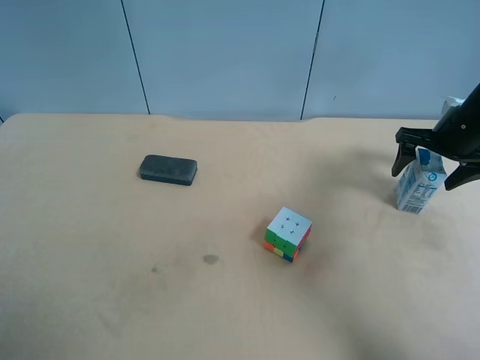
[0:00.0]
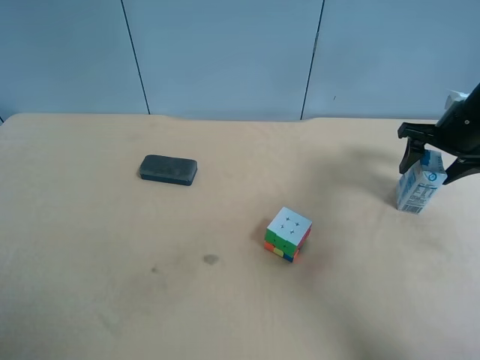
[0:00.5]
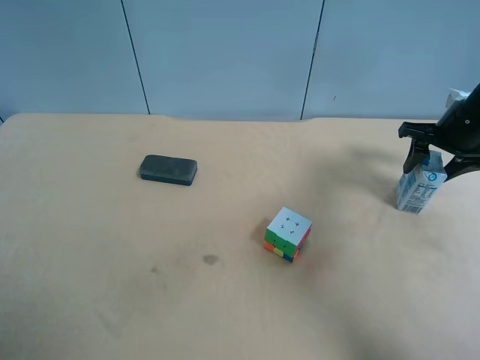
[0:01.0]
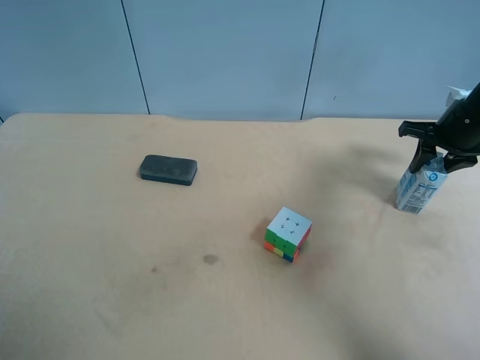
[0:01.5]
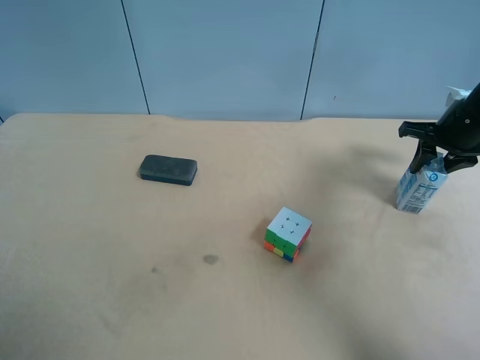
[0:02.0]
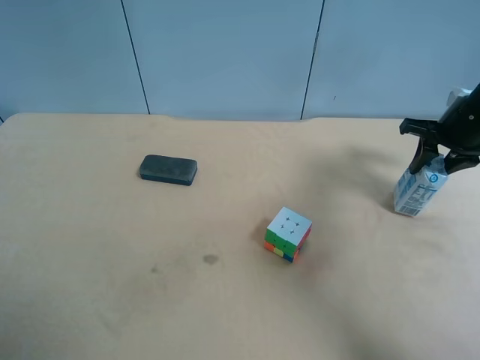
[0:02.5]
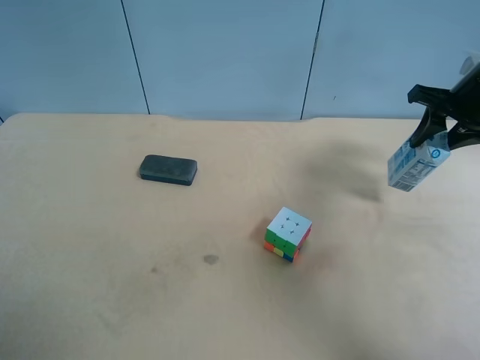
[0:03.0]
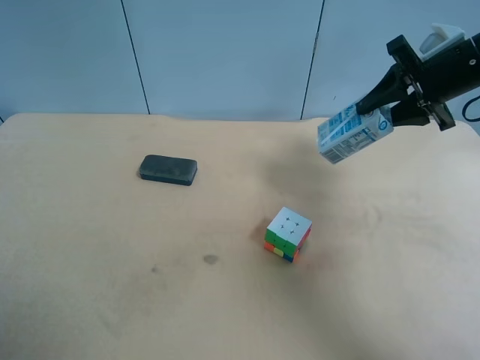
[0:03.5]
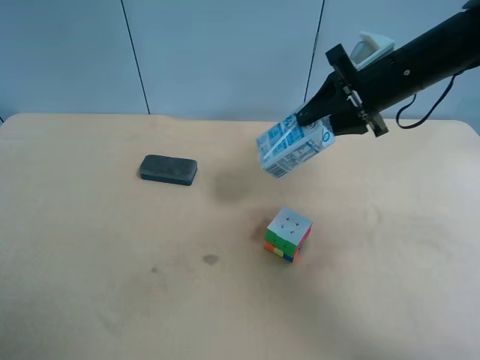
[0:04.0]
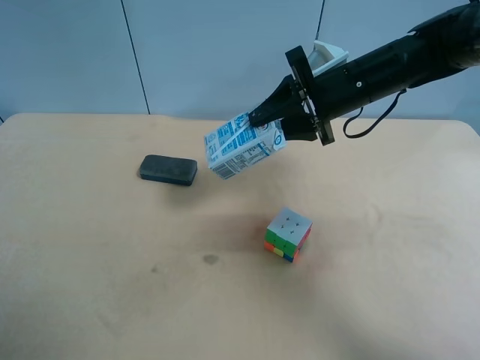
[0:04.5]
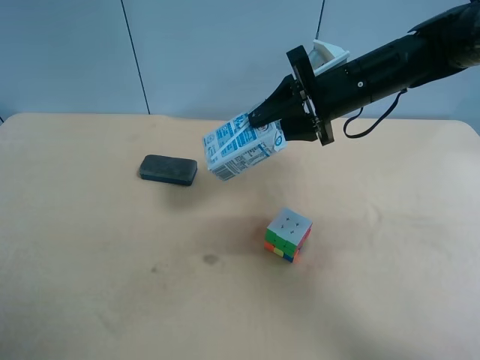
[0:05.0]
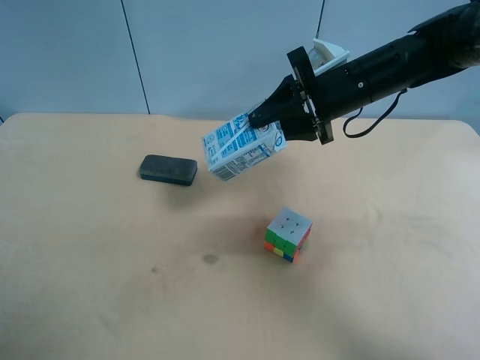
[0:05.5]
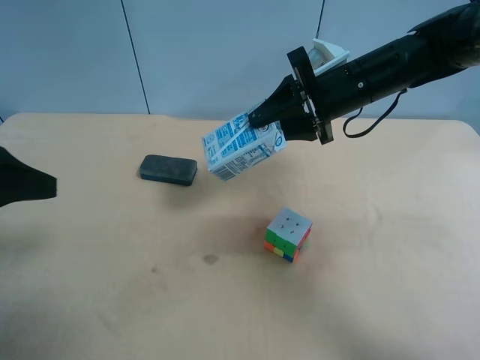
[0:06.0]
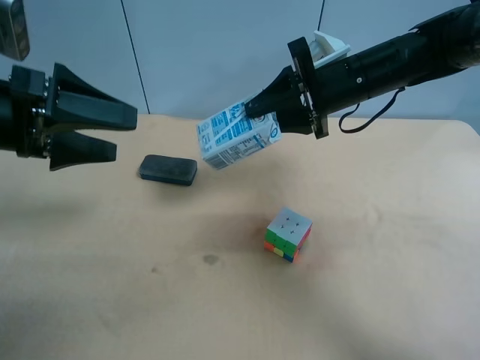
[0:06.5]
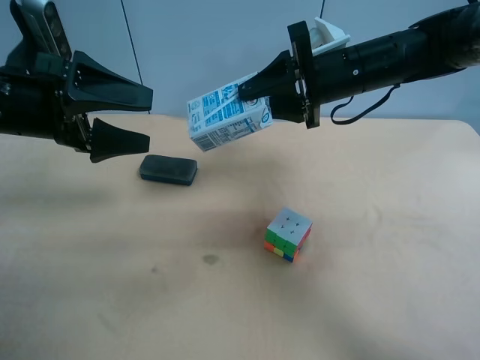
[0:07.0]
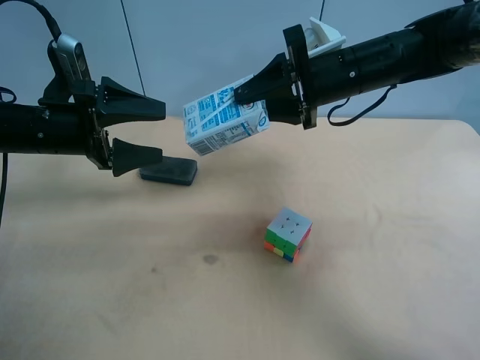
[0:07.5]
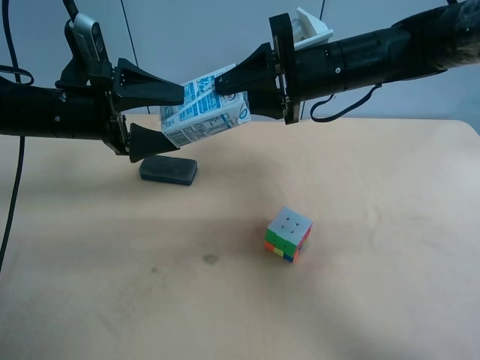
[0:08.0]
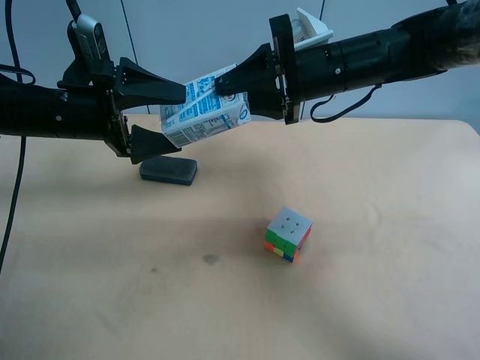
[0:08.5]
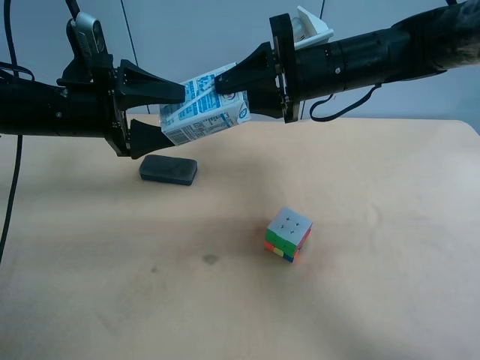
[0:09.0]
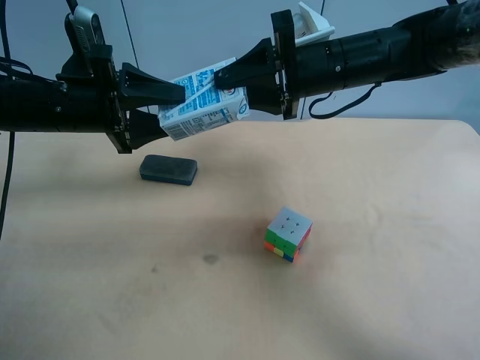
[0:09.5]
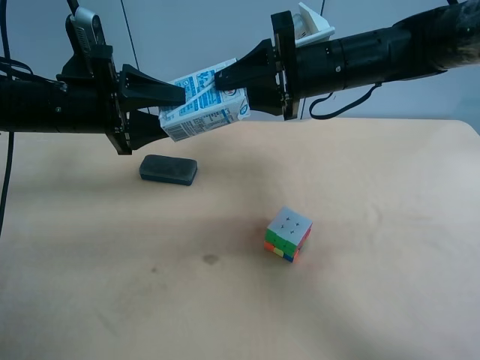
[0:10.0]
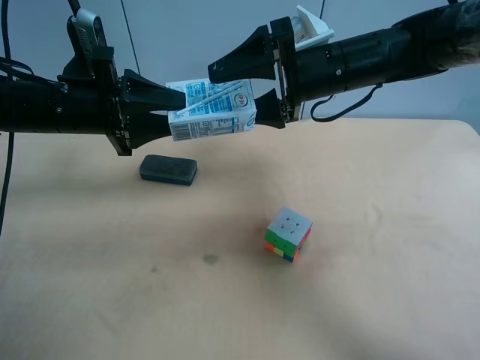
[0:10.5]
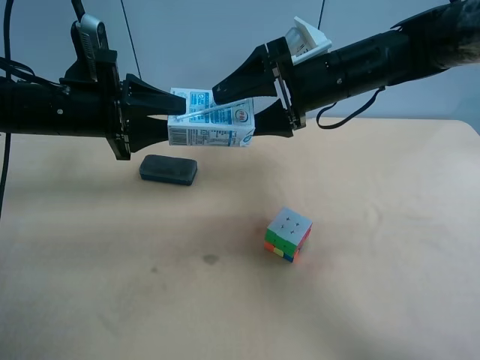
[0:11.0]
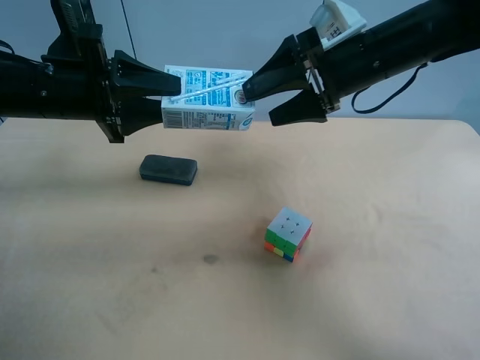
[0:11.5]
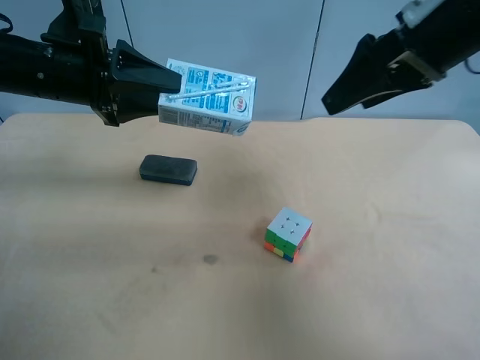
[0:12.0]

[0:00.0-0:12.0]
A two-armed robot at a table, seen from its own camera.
Task of the whole recording: use the right gripper to pick up the item and transfer it from the right gripper to the left gripper.
0:00.0 to 0:02.0: The right gripper closes.
0:02.0 to 0:04.0: The right gripper goes approximately 15 cm to the left and upward.
0:04.0 to 0:06.0: The left gripper heads forward, covering some 15 cm.
0:06.0 to 0:08.0: The left gripper is displaced forward, to the right and downward by some 20 cm.
0:08.0 to 0:10.0: The left gripper closes.
0:10.0 to 0:12.0: The right gripper travels upward, to the right and backward by approximately 15 cm, and opens.

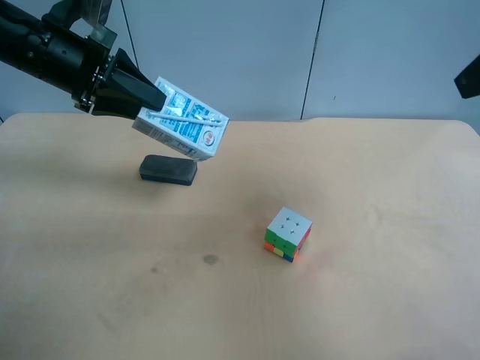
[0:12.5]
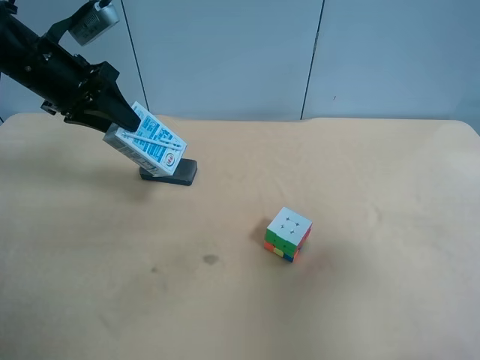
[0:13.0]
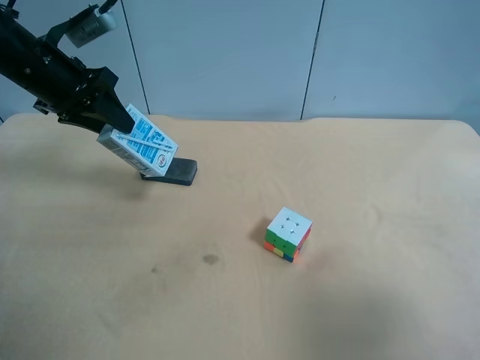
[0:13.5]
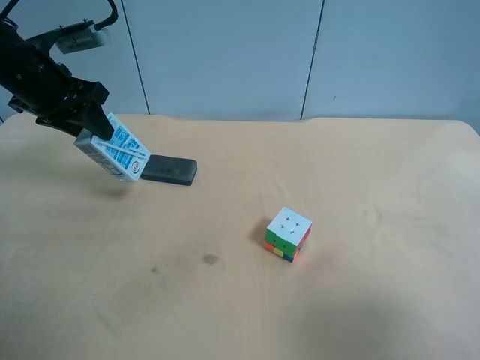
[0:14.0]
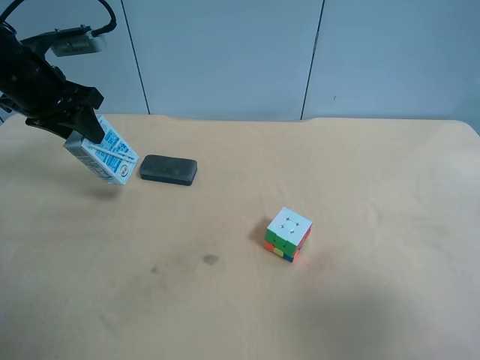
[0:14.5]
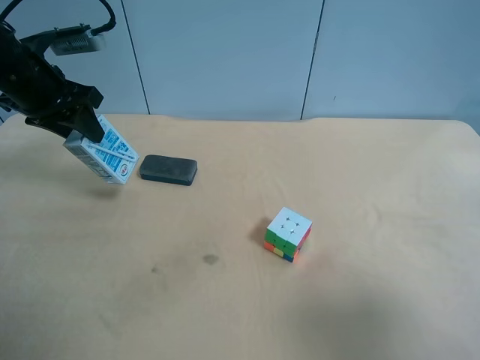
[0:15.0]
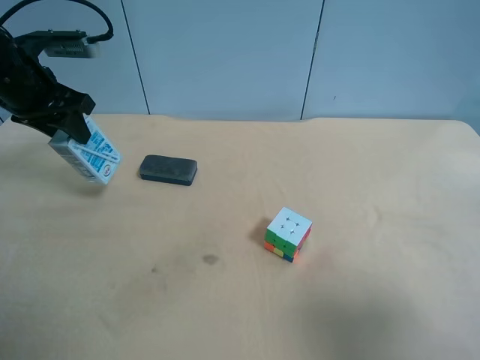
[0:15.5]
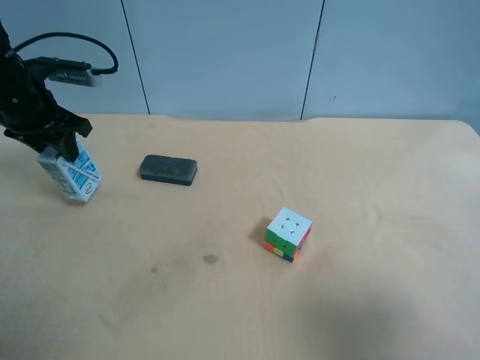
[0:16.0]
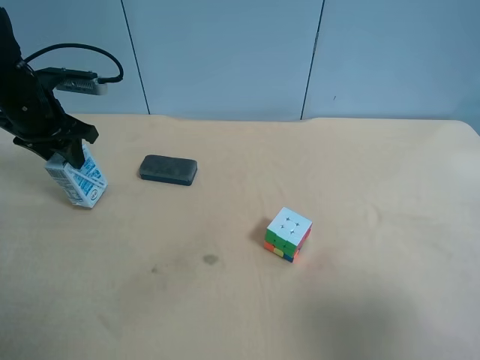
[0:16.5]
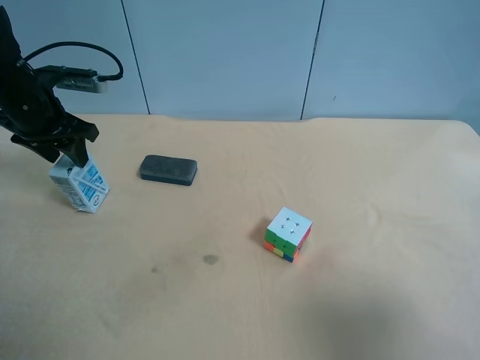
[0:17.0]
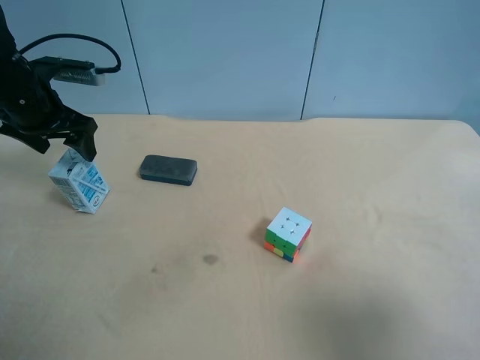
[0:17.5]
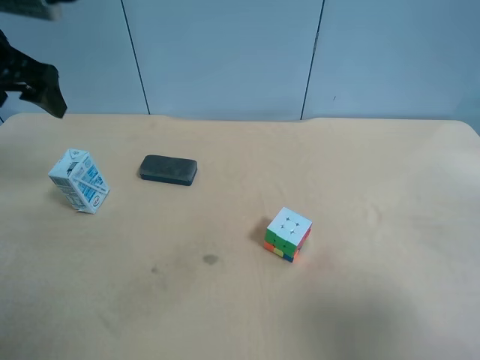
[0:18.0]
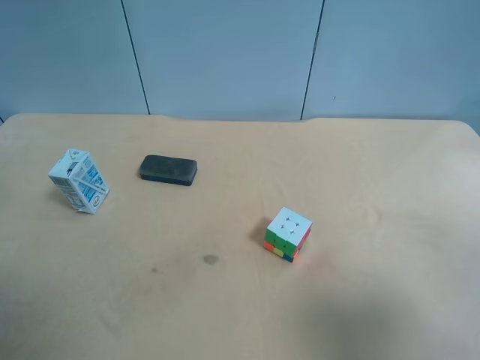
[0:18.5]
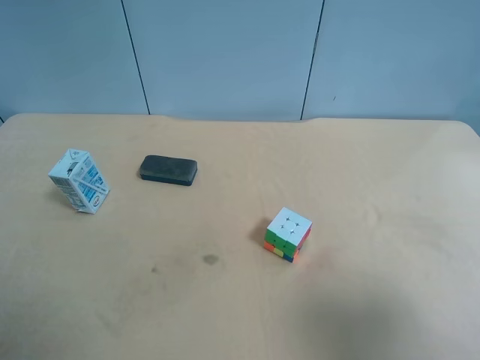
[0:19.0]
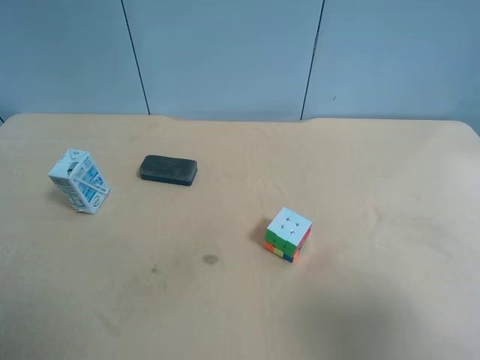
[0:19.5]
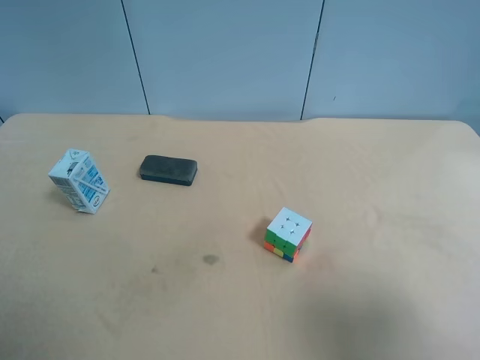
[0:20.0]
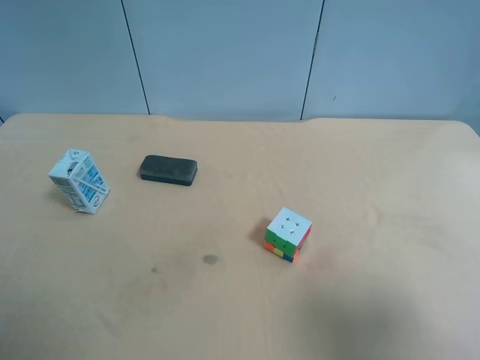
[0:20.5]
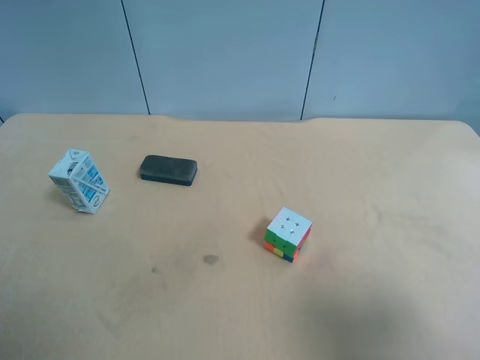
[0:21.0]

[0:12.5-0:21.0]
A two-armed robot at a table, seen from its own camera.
Task of the whole recording: use the right gripper to pick up the item and transfer it from the right gripper to the left gripper.
0:12.5 to 0:14.5: The right gripper heads backward and downward, covering about 20 cm. The left gripper changes place by some 5 cm.
0:14.5 to 0:16.5: The left gripper changes place by approximately 5 cm.
0:16.5 to 0:19.0: The left gripper heads backward, covering about 30 cm, and opens its fingers.

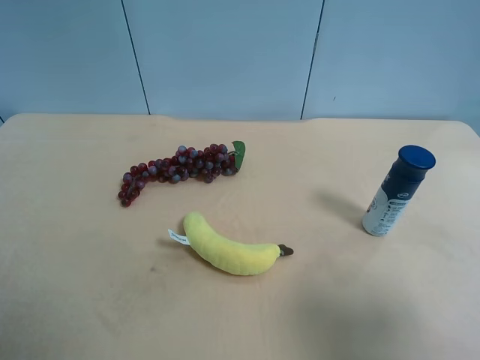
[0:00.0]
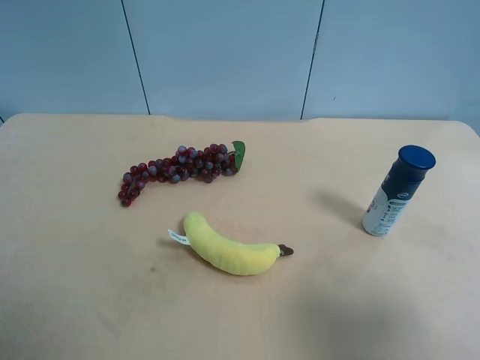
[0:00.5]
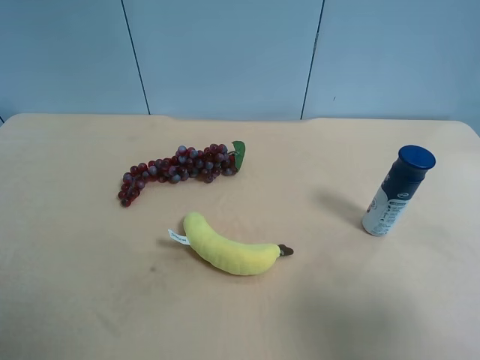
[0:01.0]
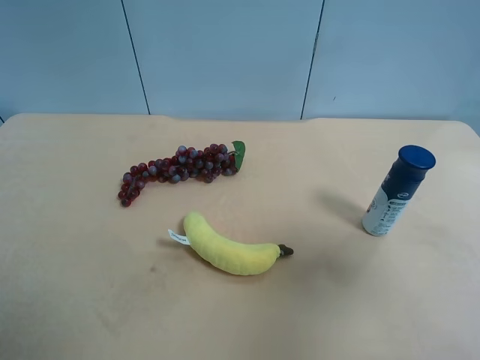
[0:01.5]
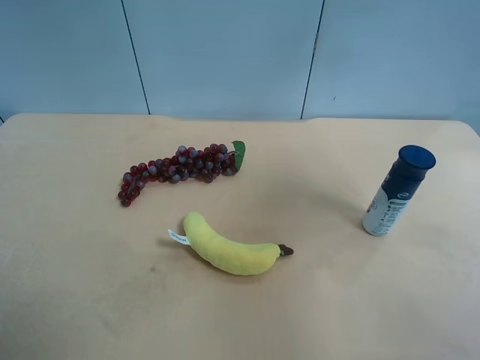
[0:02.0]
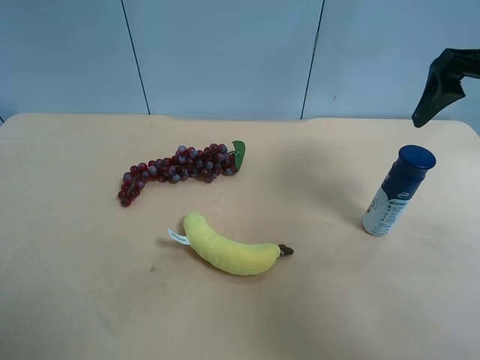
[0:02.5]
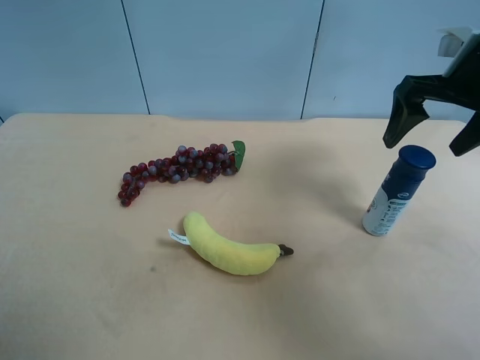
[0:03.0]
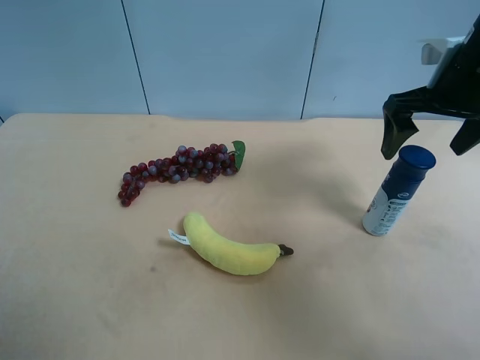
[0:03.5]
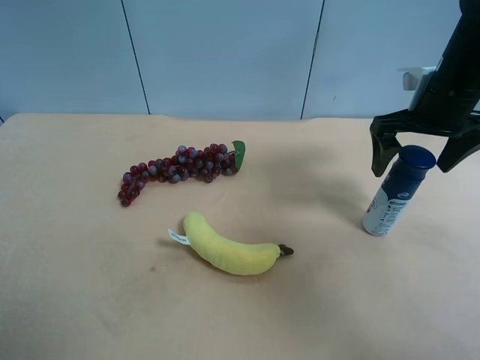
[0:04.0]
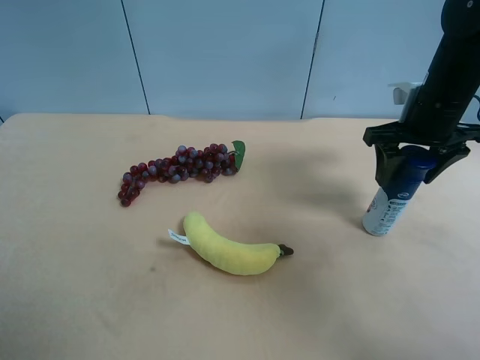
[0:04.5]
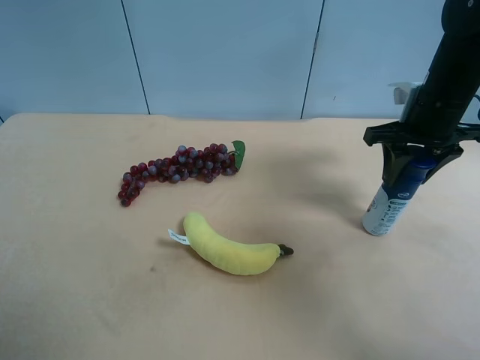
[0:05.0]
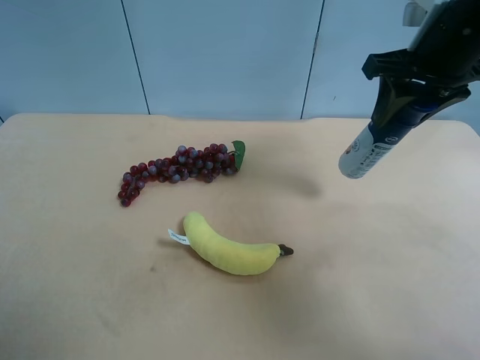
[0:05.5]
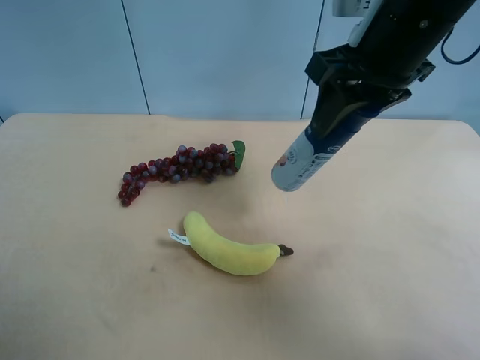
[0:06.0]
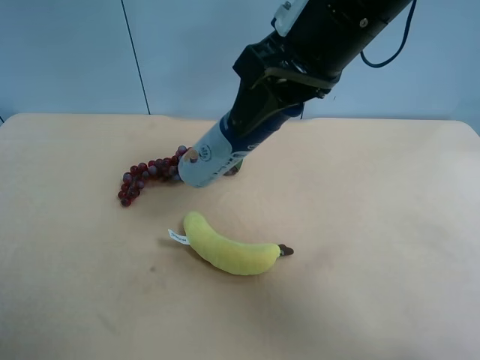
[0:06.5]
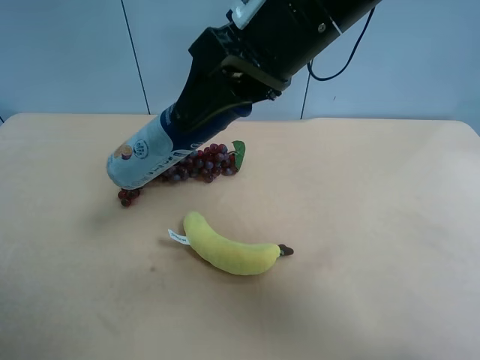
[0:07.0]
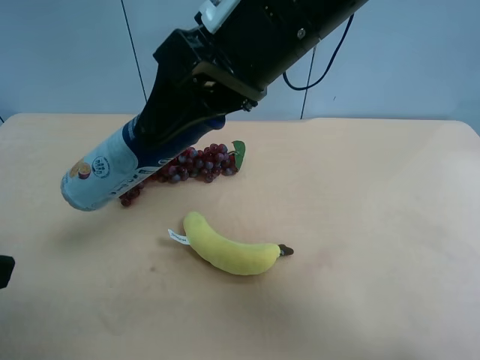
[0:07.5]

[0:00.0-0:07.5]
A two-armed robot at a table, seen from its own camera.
Task of the whole recording: use the right gripper to pick up the item and transfer it from the right gripper to the left gripper.
0:00.0 to 0:02.0: The right gripper travels forward and upward by approximately 25 cm.
0:02.0 to 0:04.0: The right gripper is displaced downward and forward by roughly 20 cm.
0:04.0 to 0:05.5: The right gripper moves upward, roughly 10 cm, and closes.
0:05.5 to 0:07.5: The right gripper travels to the left and backward by about 20 cm. Meanwhile the left gripper travels forward by roughly 5 cm.
